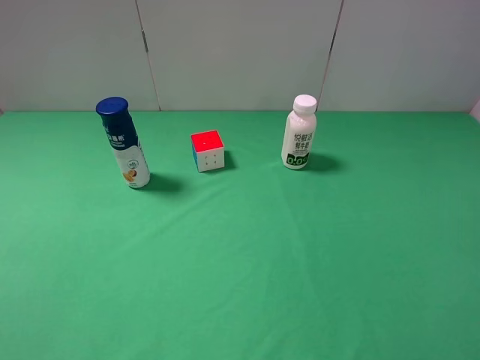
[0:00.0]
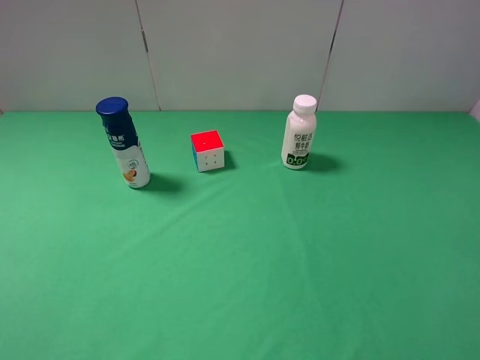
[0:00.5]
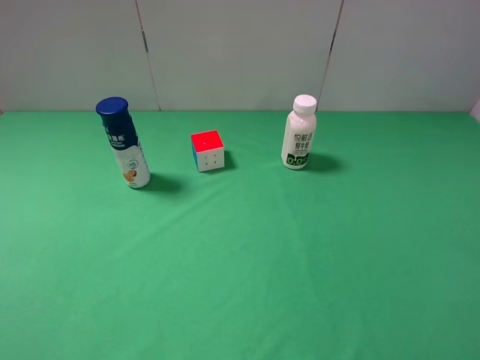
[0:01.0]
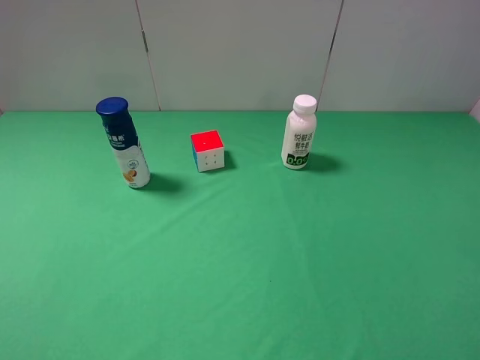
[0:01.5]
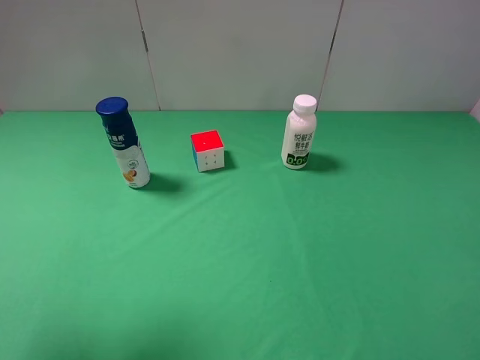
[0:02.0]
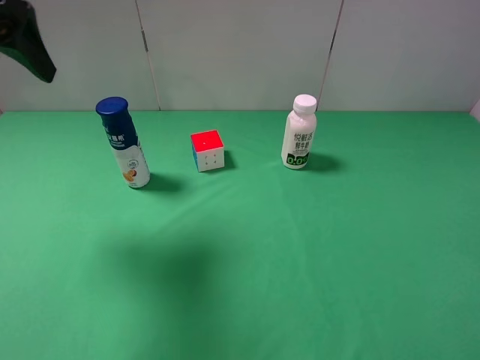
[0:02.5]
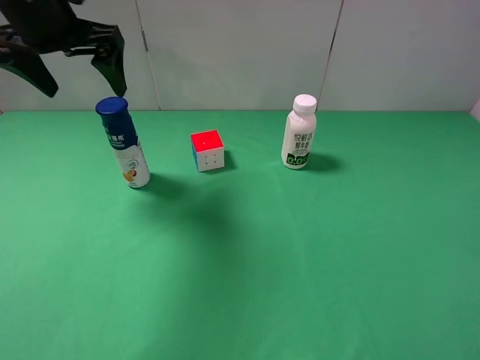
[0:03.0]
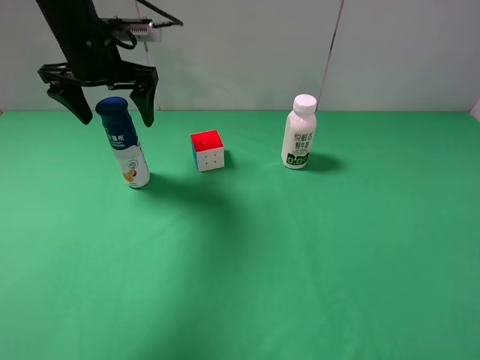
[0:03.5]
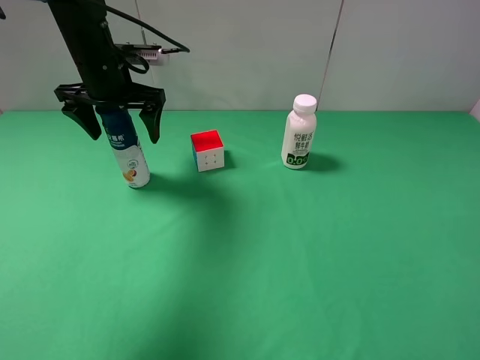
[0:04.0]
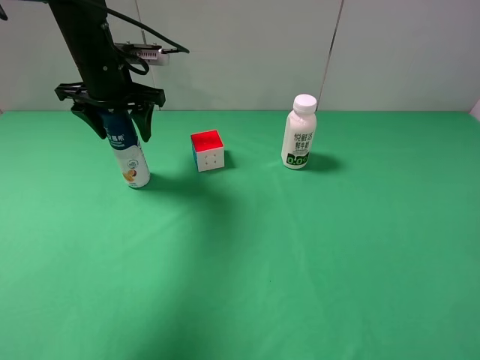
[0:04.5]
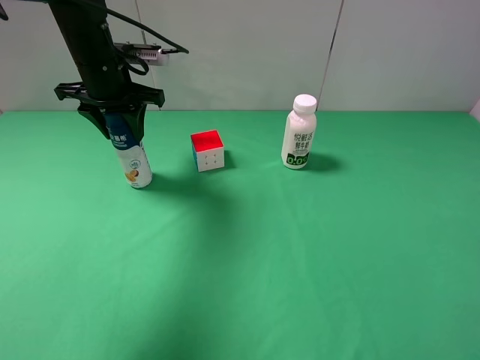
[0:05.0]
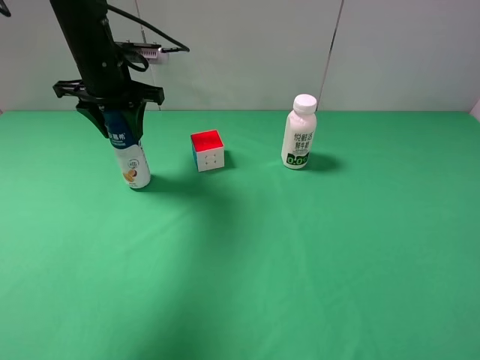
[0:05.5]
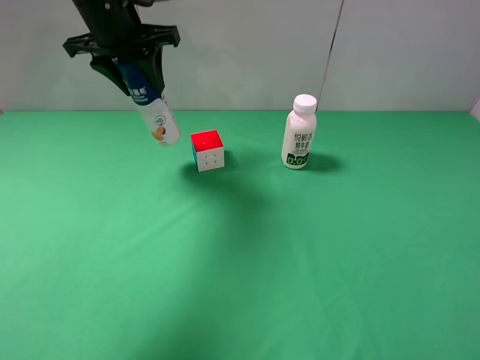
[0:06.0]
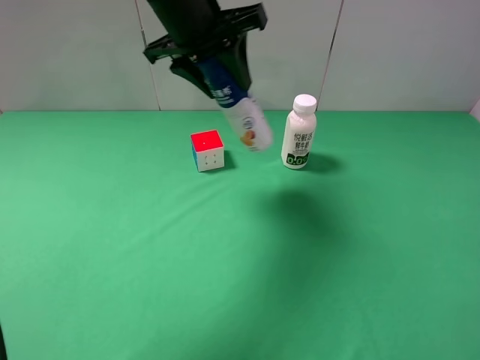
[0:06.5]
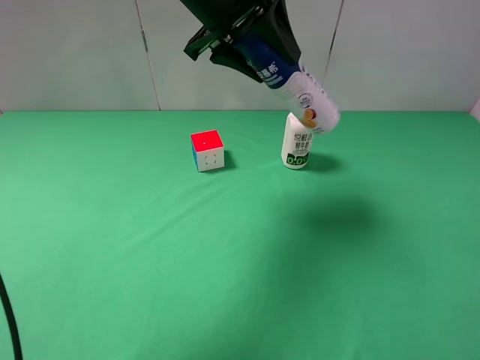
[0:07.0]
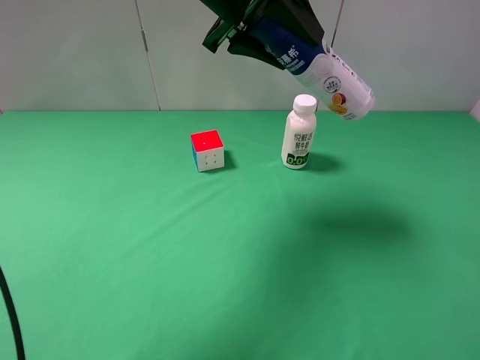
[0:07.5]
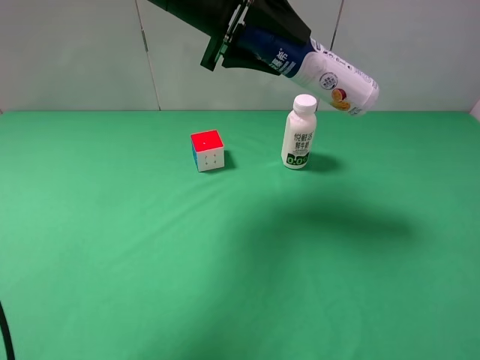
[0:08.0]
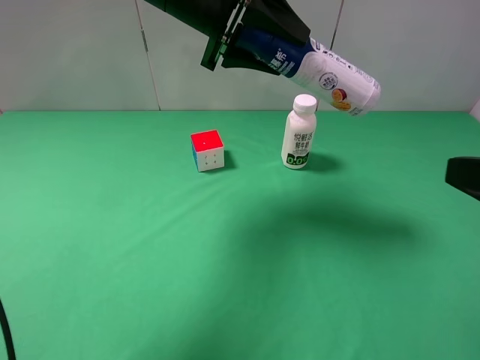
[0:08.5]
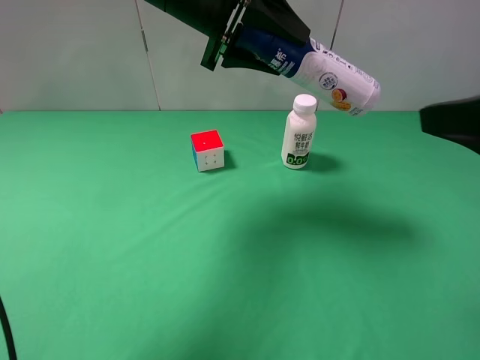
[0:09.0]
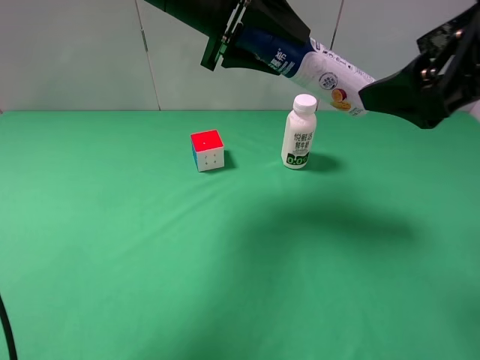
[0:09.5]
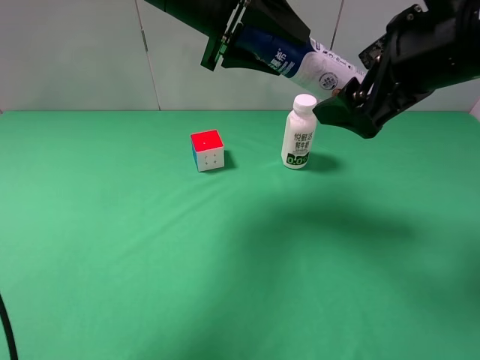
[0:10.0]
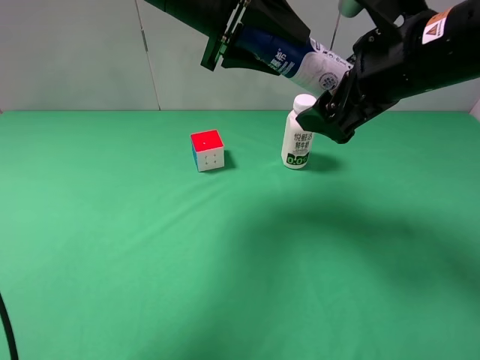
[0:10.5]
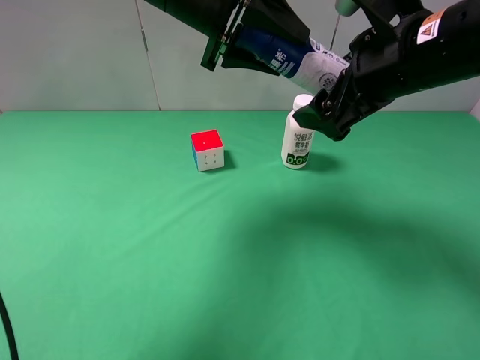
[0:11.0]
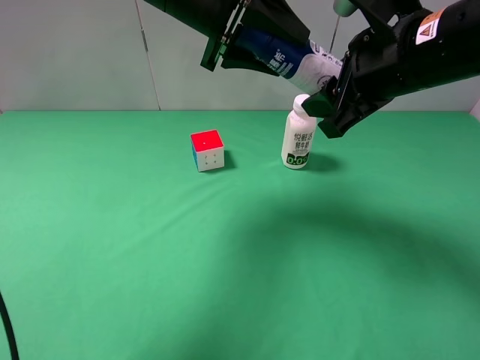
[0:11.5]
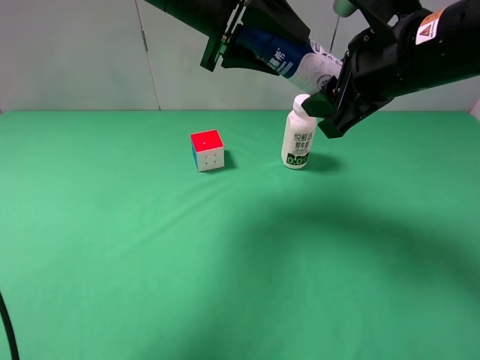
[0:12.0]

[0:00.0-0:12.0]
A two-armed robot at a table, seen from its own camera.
Task of the whole recording: use the left gripper to pick up the item and transfer it from the left gripper to the right gripper.
Step, 0:00.0 to 0:04.5: Use the left gripper to grab the yogurt on the left side of the table.
0:00.0 to 0:02.0: The left gripper heads forward and upward, covering approximately 15 cm.
0:02.0 to 0:04.0: The left gripper travels forward, downward and to the right by some 35 cm.
0:04.0 to 0:06.0: The left gripper heads upward, covering about 10 cm, and closes.
0:06.0 to 0:08.0: The left gripper moves to the right, approximately 10 cm.
0:08.0 to 0:10.0: The right gripper is displaced forward and to the left by approximately 25 cm.
0:10.0 to 0:12.0: The right gripper closes up.

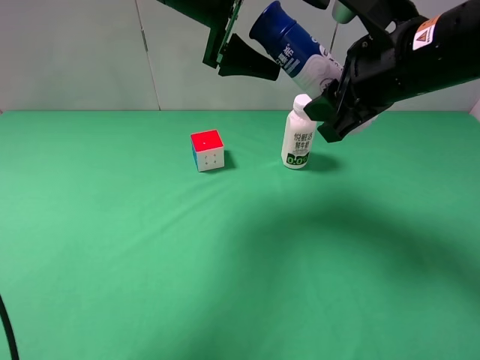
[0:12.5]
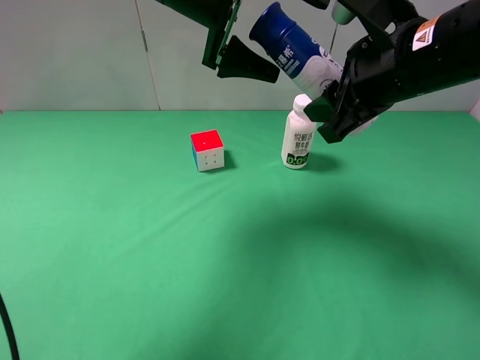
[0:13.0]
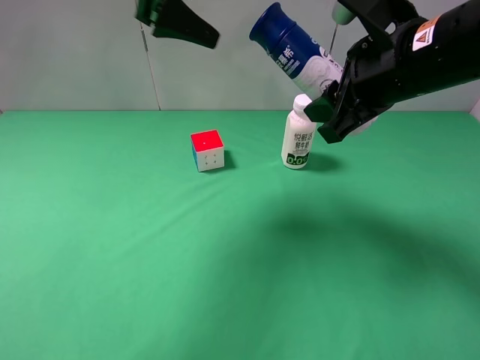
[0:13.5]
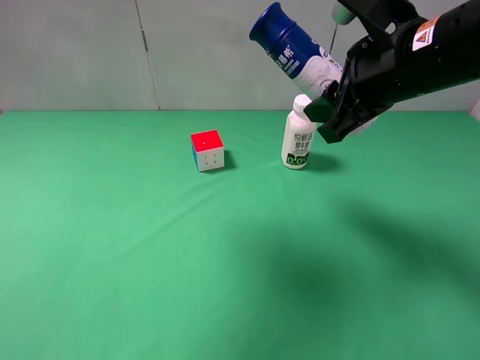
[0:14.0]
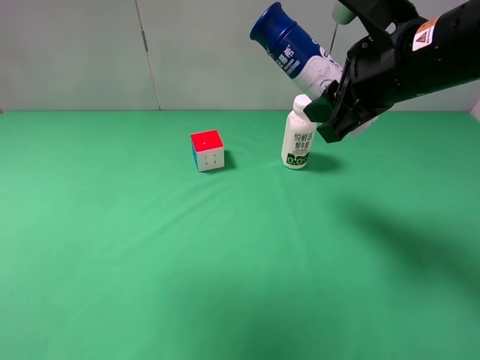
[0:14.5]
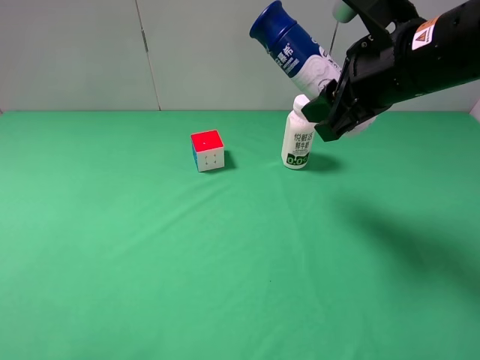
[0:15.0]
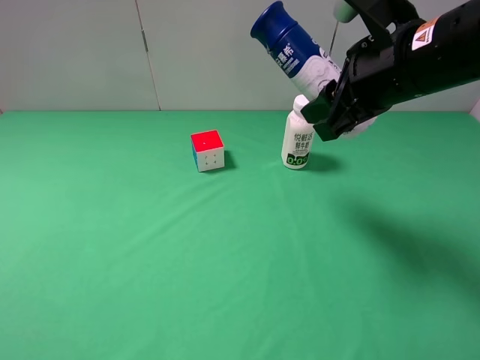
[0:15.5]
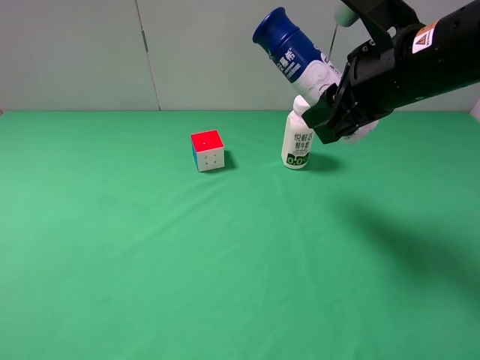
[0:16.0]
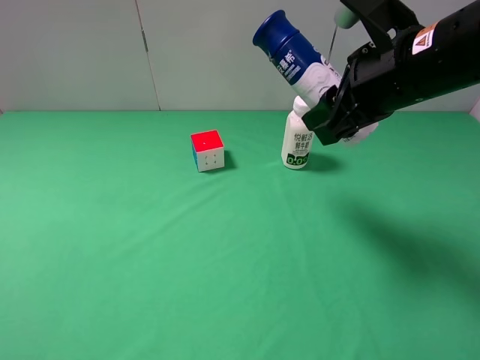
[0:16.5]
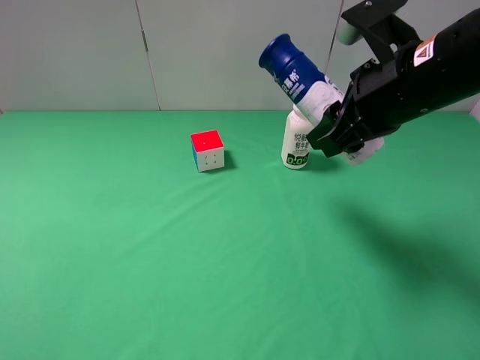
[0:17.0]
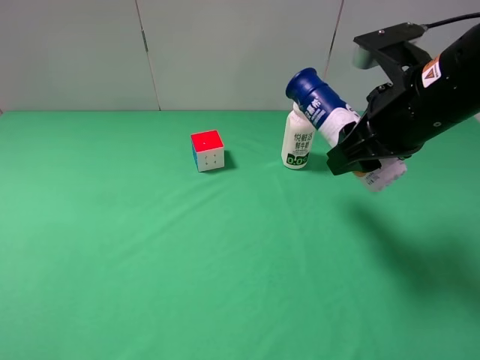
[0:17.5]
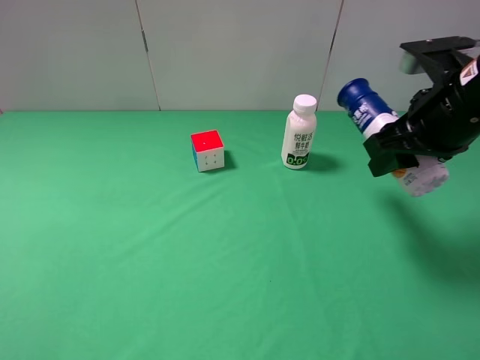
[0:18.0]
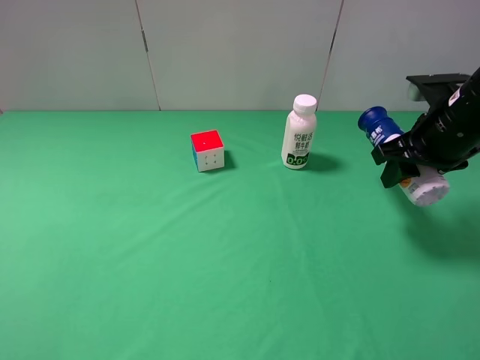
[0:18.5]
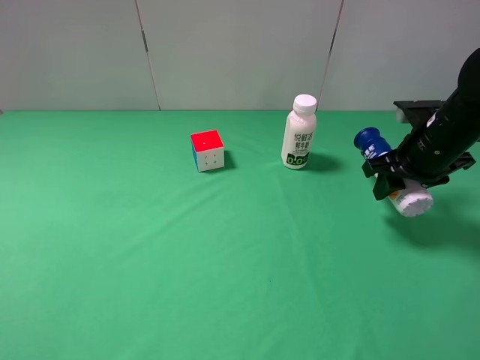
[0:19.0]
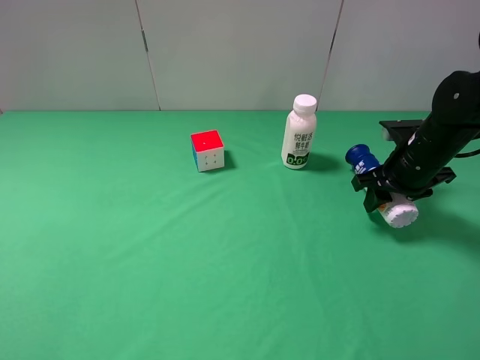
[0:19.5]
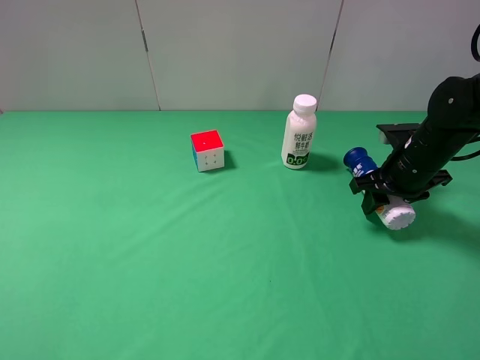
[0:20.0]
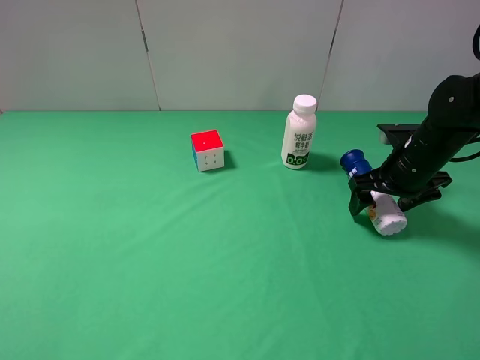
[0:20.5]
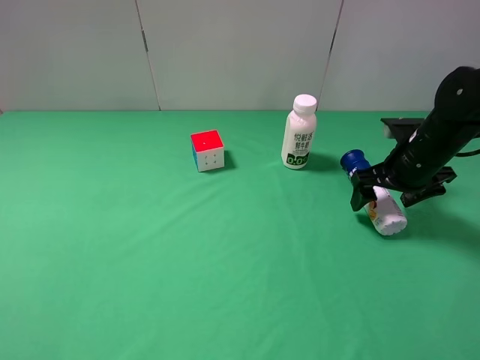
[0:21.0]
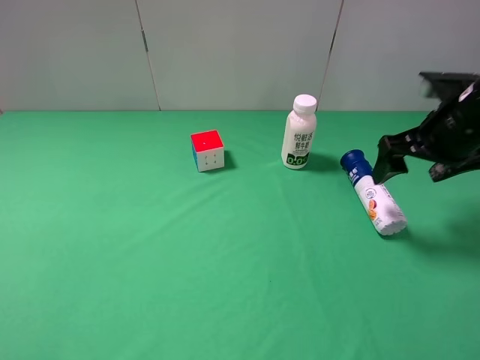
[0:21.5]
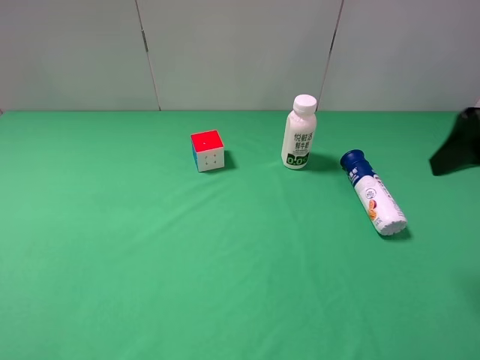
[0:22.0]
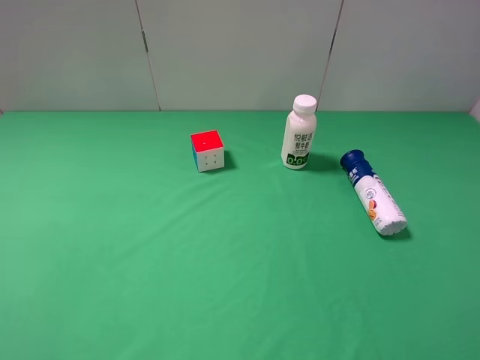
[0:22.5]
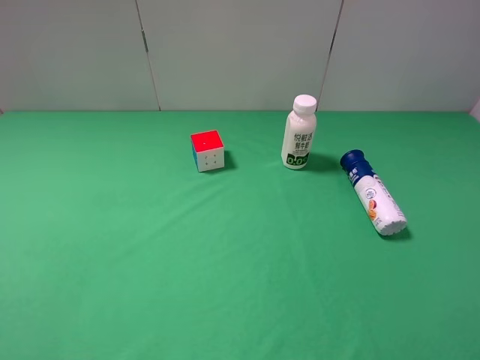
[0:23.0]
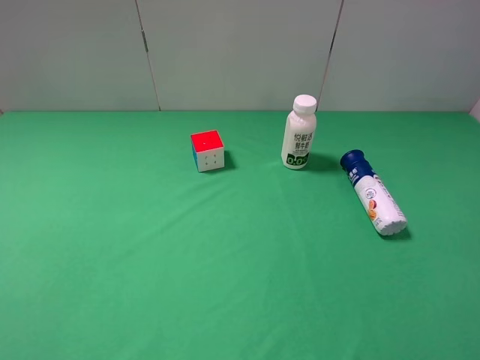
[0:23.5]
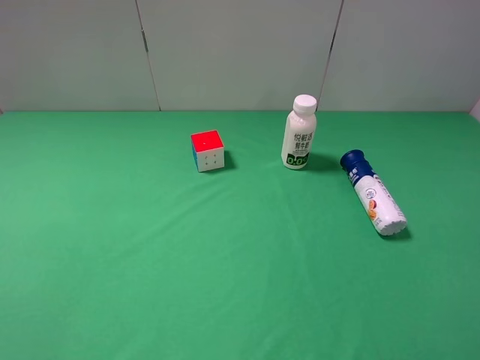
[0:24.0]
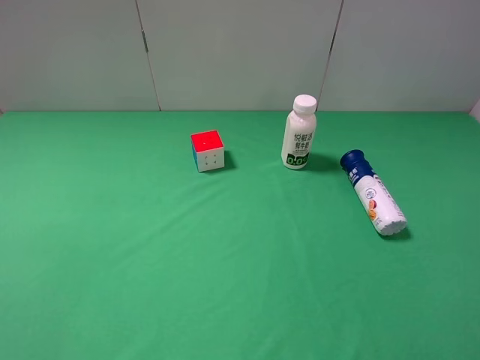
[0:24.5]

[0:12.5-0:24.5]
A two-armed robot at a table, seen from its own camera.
Task of the whole recording: use the left gripper to pick up the item and transfer it from the left gripper to the right gripper.
Step, 0:12.5 to 0:20.0: The right gripper places yogurt on the right side of the table.
0:12.5 to 0:14.5: The left gripper heads to the left, backward and upward, covering about 30 cm.
0:14.5 to 0:16.5: The left gripper is displaced downward and backward by about 25 cm.
0:16.5 to 0:18.5: The right gripper goes roughly 10 cm to the right and downward.
0:18.5 to 0:20.5: The right gripper shifts approximately 10 cm downward, and opens.
0:20.5 to 0:22.5: The right gripper moves backward and upward, roughly 35 cm.
